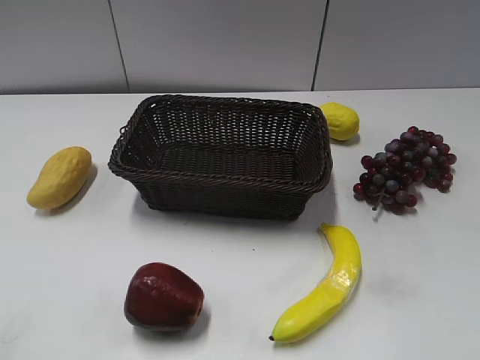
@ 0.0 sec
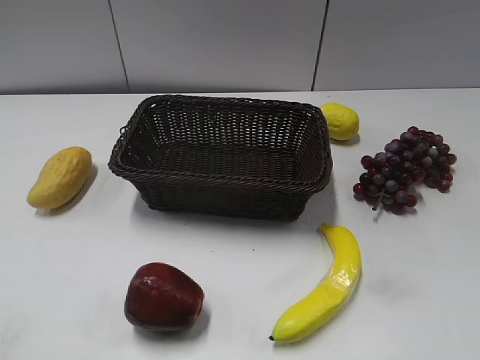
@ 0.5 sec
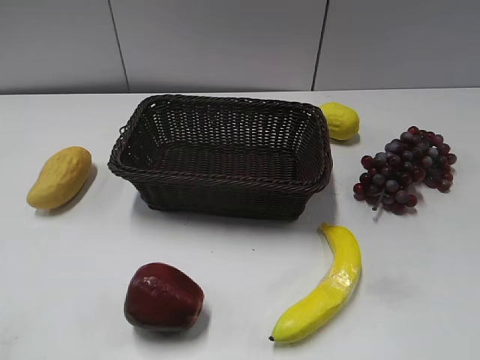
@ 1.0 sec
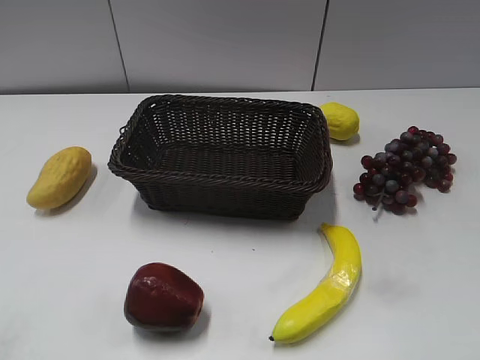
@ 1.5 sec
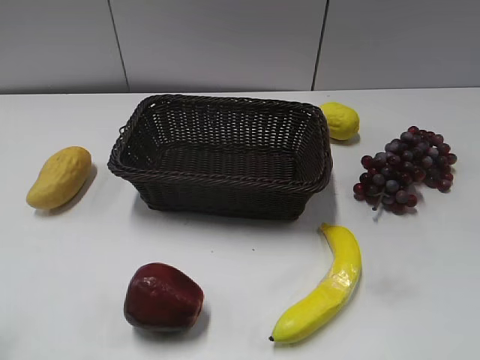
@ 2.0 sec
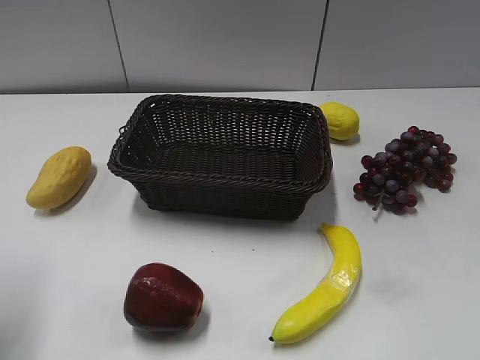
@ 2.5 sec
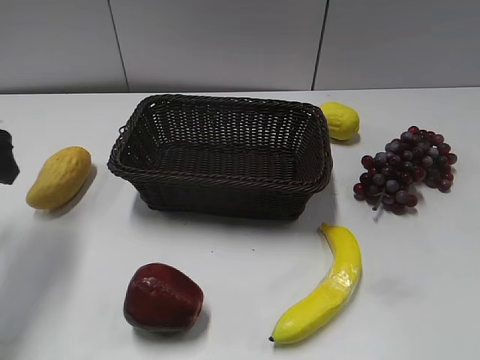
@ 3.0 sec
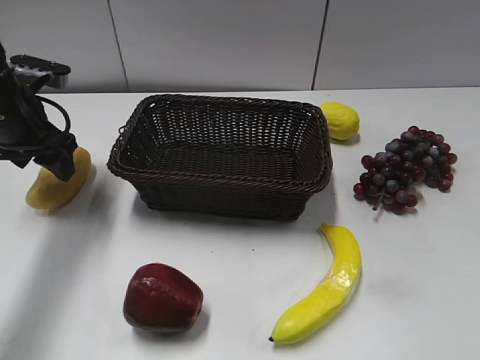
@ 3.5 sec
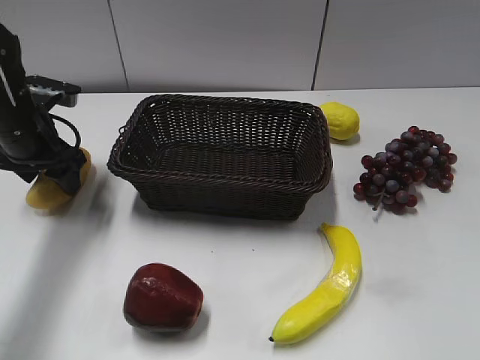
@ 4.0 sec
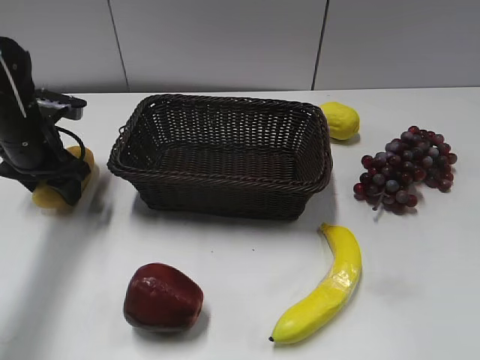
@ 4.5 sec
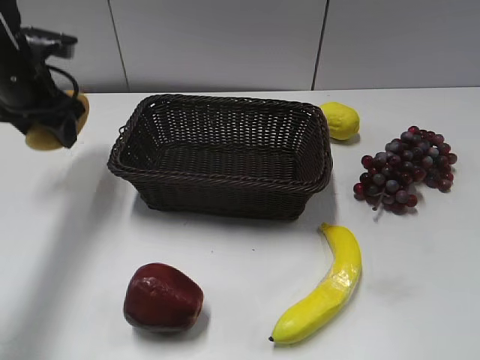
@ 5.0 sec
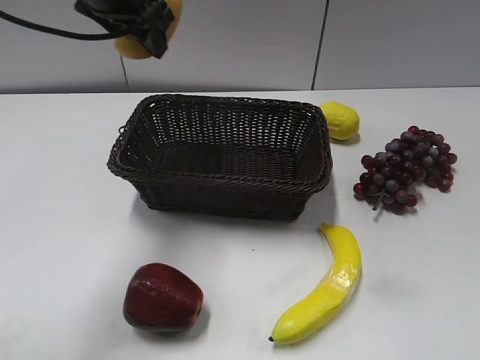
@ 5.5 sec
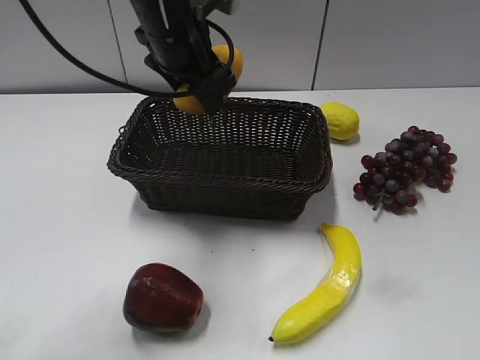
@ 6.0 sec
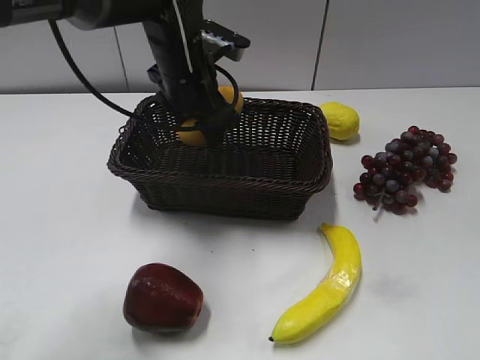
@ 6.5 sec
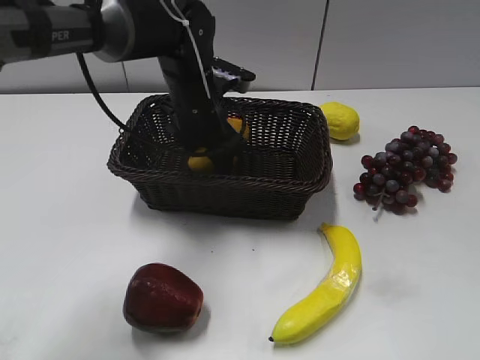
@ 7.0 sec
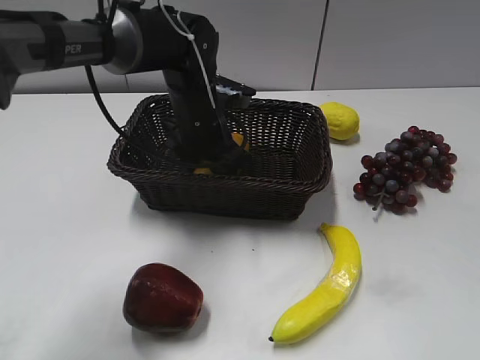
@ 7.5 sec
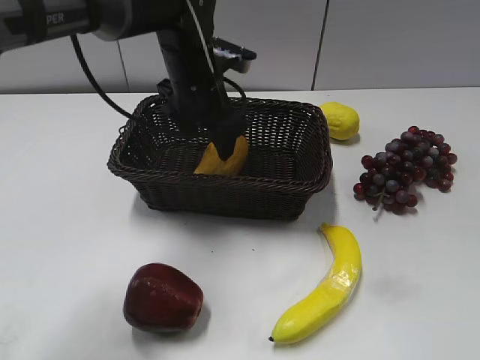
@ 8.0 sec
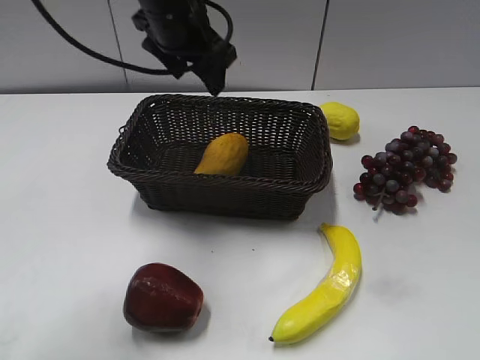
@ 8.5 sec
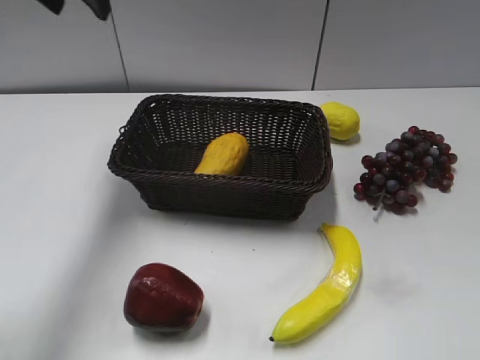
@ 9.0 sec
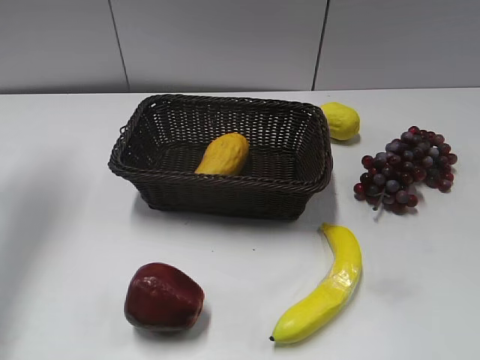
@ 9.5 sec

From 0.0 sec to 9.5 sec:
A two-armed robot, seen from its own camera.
Step, from 3.0 sec to 4.0 sec: Grasp the mango with left gripper.
Step, from 4.5 sec to 7.5 sec: Place the mango in the basket with left gripper.
From 2.0 sec to 4.0 sec: The left gripper moves forward, approximately 30 cm, and opens up.
From 4.0 sec to 5.5 sec: The left gripper is displaced upward and to the right by roughly 20 cm, and closes up.
From 5.5 sec to 7.5 sec: The left gripper heads downward and to the right, covering approximately 20 cm, and opens its fingers.
From 7.5 sec to 9.5 sec: The left gripper travels to the left and upward by roughly 35 cm.

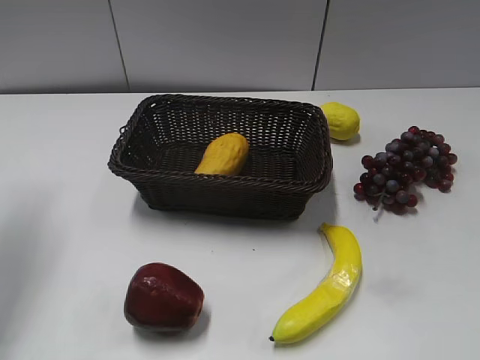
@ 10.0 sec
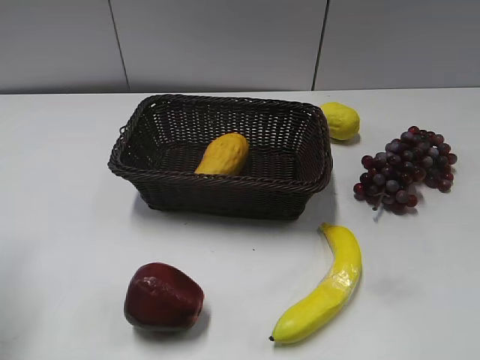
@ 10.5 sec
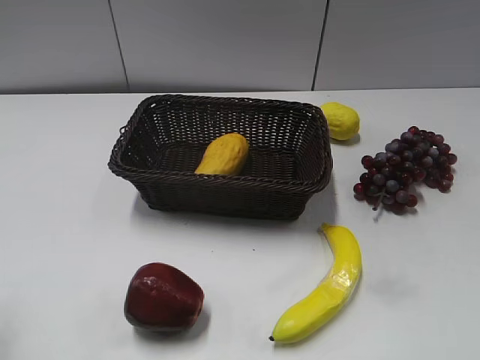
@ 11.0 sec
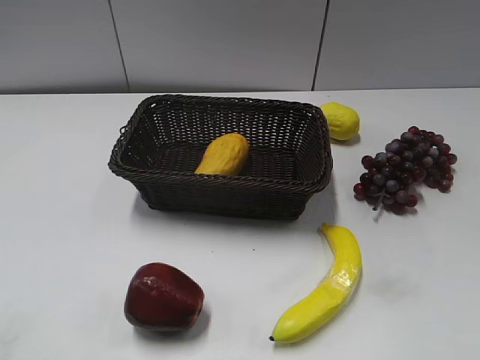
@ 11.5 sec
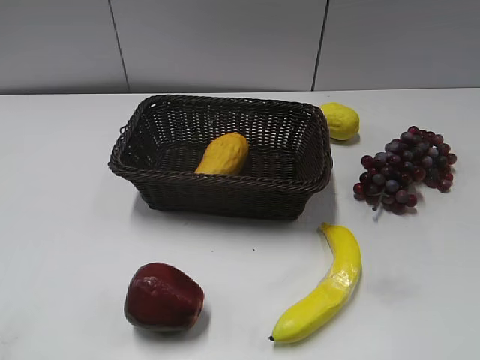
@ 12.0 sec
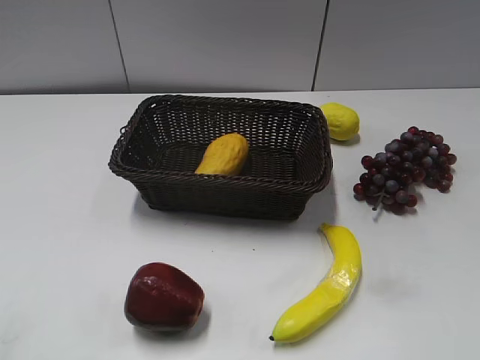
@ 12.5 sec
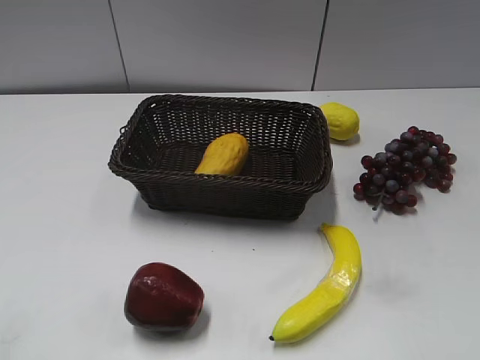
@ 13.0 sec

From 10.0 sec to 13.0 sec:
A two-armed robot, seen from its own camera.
From 10.0 sec to 11.5 sec: The left gripper moves backward, roughly 25 cm.
